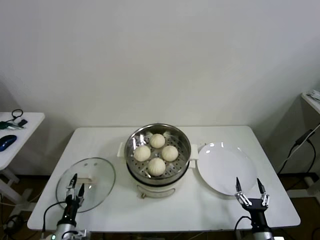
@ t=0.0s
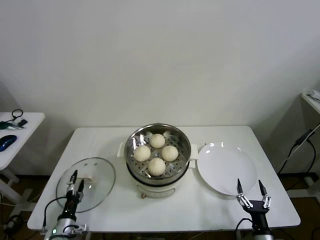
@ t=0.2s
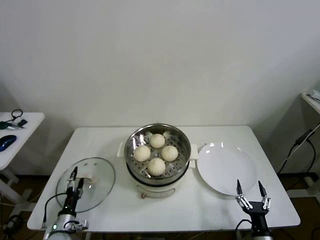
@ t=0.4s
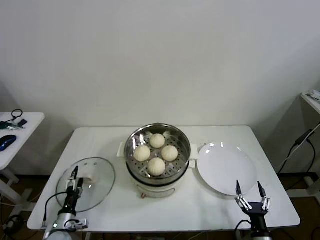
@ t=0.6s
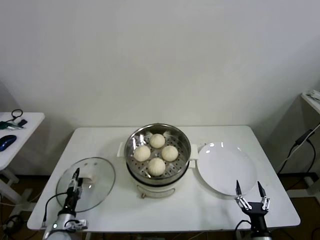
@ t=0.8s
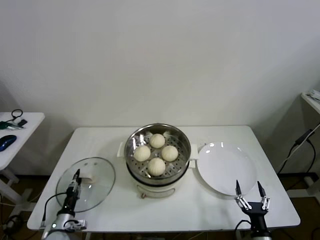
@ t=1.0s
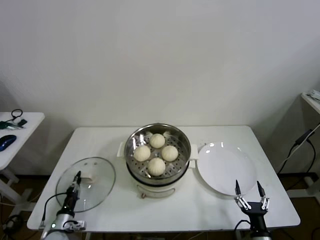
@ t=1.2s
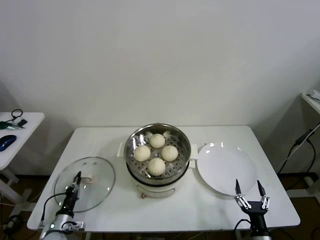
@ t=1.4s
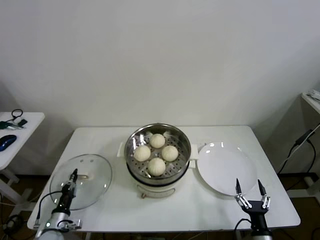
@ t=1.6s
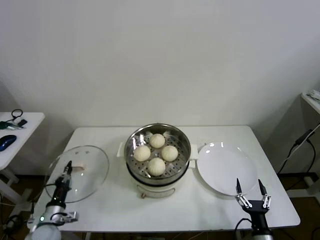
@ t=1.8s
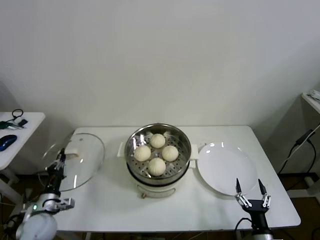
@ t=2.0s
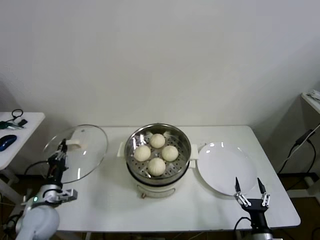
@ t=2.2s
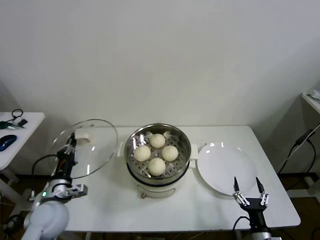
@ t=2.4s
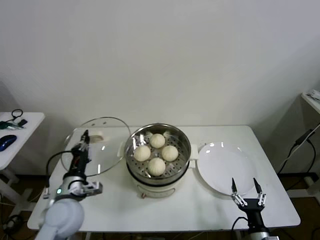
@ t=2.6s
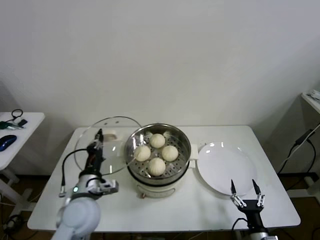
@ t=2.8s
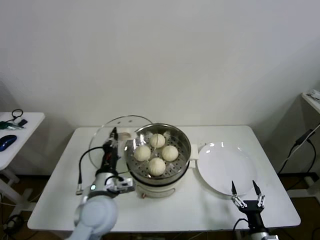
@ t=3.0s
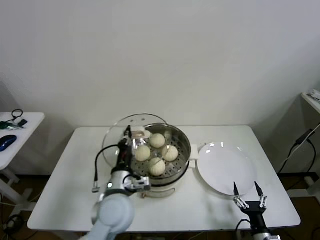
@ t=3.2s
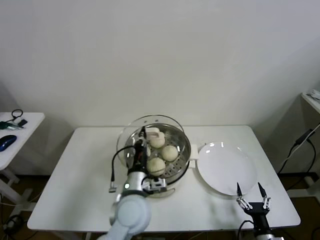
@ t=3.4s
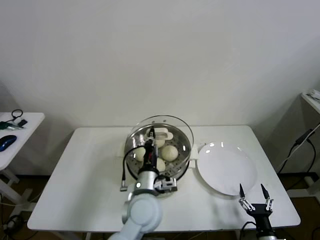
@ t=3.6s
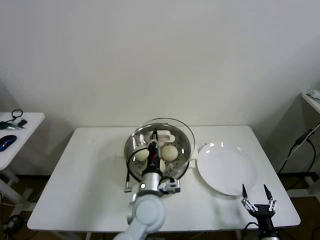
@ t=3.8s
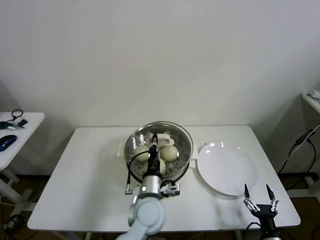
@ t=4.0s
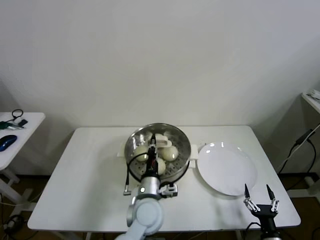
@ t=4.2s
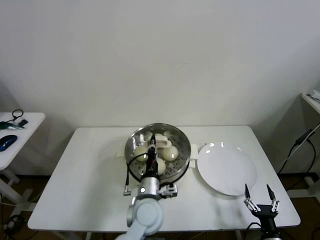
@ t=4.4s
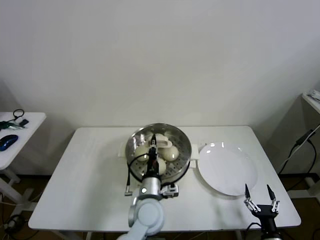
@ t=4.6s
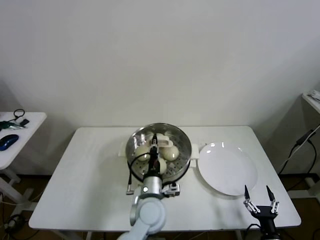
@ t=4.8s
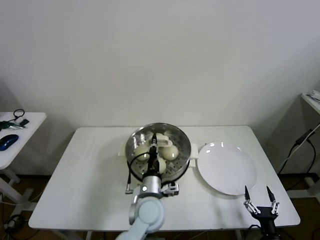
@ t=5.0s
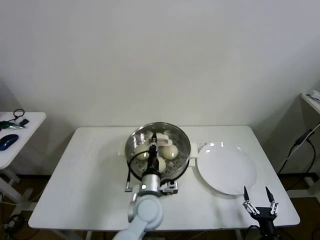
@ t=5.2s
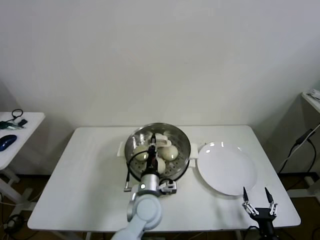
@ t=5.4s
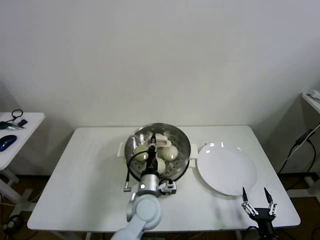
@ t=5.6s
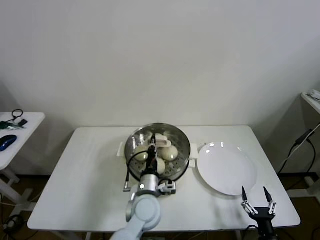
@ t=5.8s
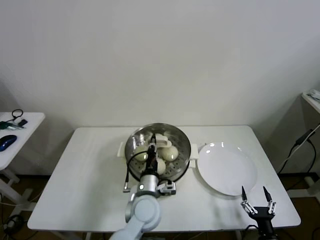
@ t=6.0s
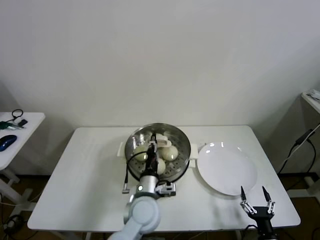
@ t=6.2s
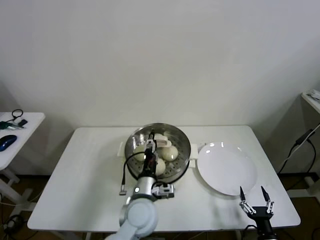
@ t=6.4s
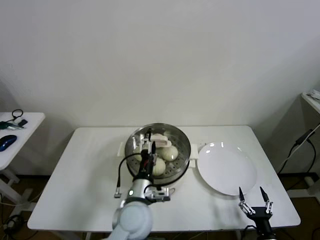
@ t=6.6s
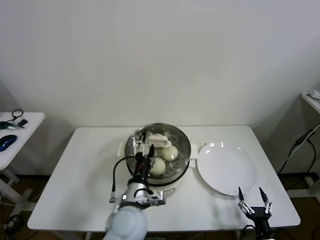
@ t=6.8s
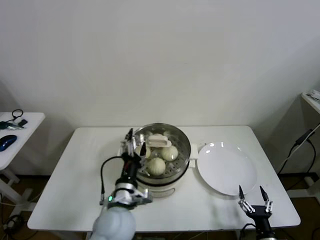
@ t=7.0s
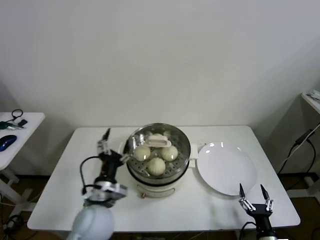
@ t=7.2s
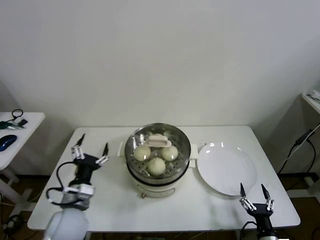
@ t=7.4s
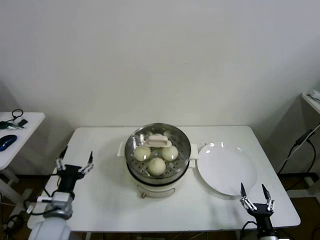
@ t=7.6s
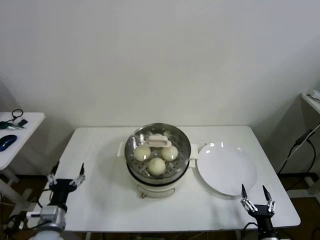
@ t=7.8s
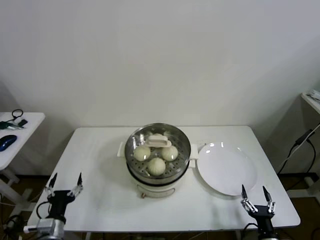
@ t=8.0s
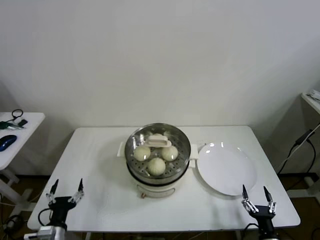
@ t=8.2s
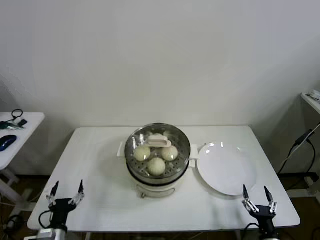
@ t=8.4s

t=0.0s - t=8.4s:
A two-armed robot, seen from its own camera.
Step, t=1.4s - t=6.0s: Place the pot lid on the steamer with left gripper.
t=0.0s - t=1.4s: The left gripper changes place by approximately 5 cm, and closes its fingers.
t=1.4s - t=2.8s: The left gripper shifts roughly 30 cm upward and to the right.
t=2.8s - t=4.2s: The left gripper goes about 20 cm to the right.
t=4.2s - t=5.6s: There are only small adjustments of the grippers.
t=5.6s - t=7.0s: The left gripper heads to the left and backward, covering approximately 10 cm, and opens its fingers.
t=7.0s - t=8.4s: The left gripper heads to the left and downward, covering about 25 cm.
